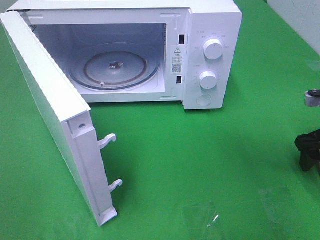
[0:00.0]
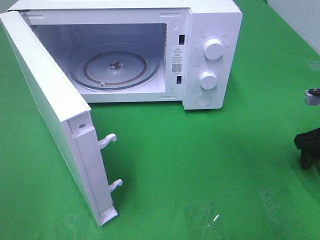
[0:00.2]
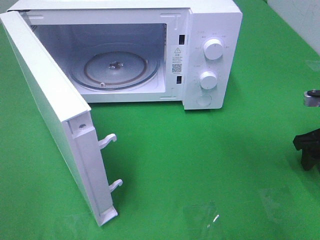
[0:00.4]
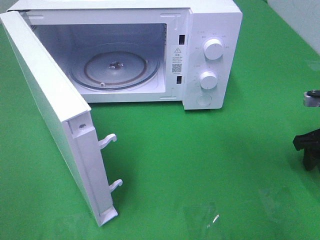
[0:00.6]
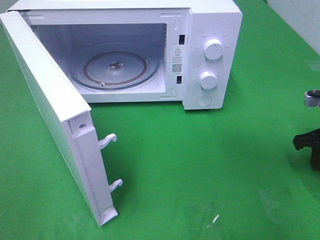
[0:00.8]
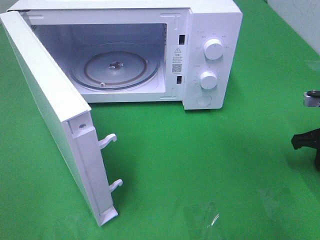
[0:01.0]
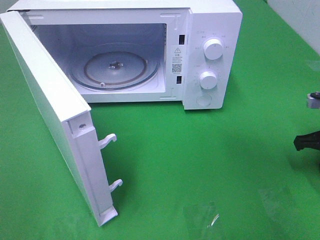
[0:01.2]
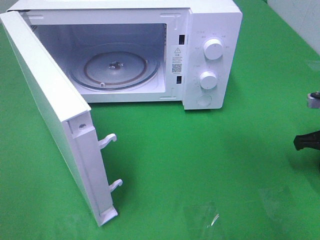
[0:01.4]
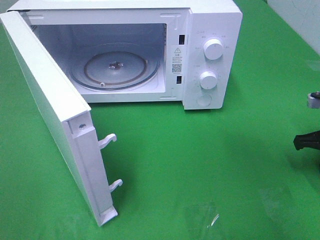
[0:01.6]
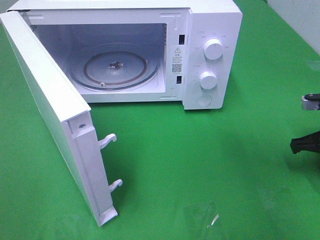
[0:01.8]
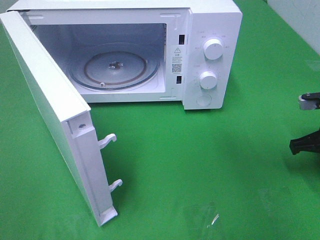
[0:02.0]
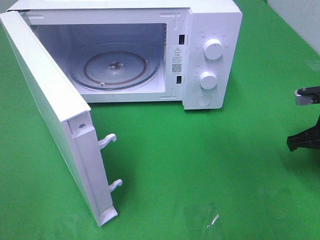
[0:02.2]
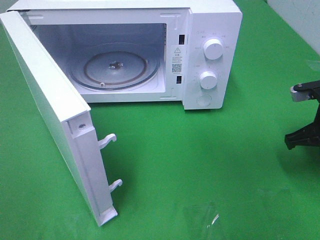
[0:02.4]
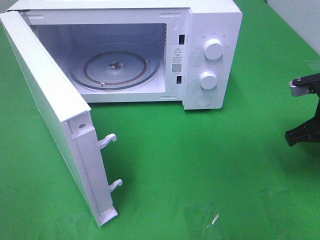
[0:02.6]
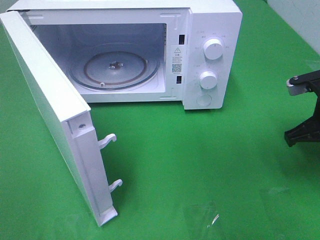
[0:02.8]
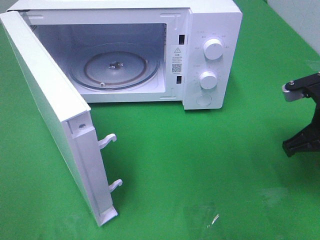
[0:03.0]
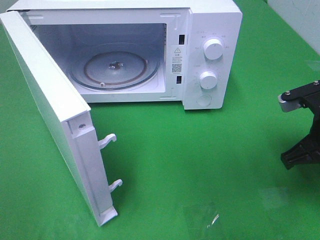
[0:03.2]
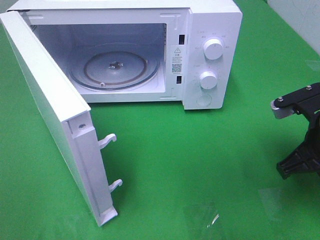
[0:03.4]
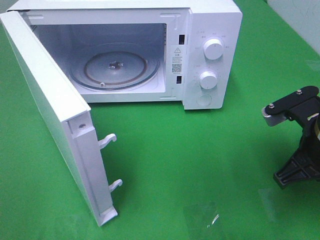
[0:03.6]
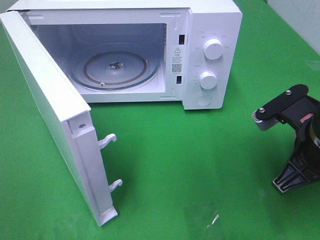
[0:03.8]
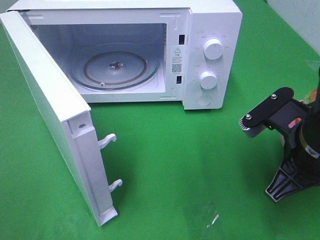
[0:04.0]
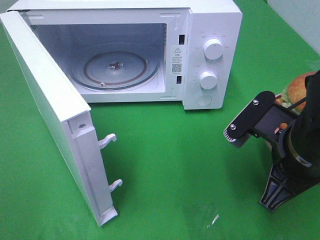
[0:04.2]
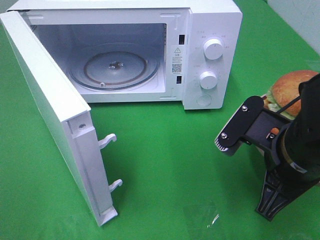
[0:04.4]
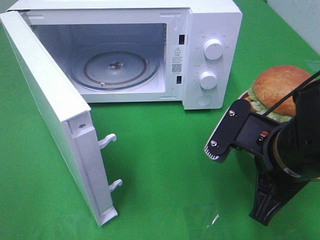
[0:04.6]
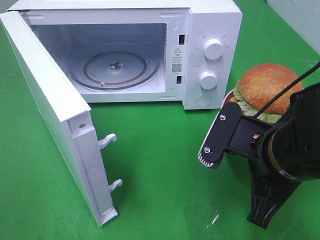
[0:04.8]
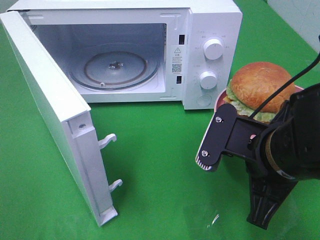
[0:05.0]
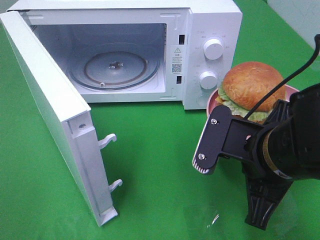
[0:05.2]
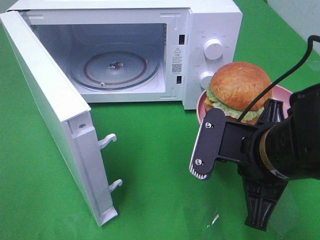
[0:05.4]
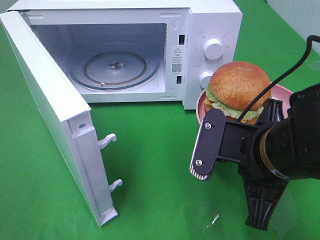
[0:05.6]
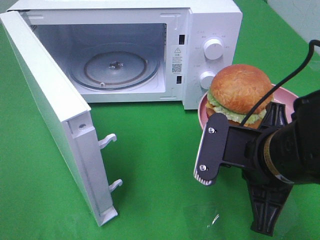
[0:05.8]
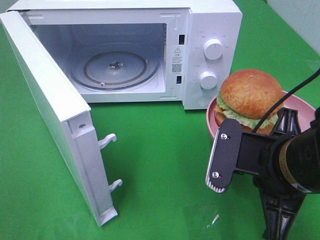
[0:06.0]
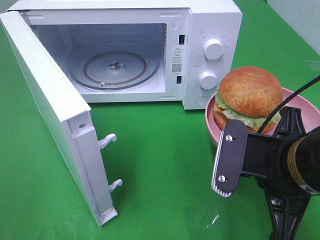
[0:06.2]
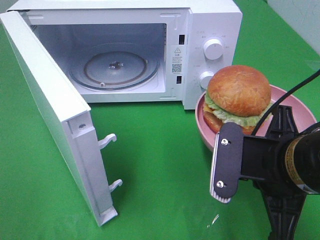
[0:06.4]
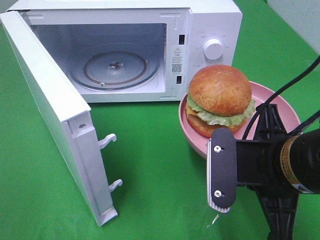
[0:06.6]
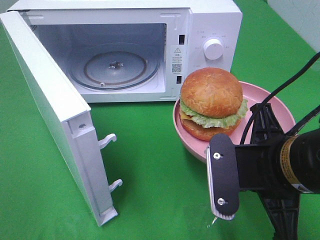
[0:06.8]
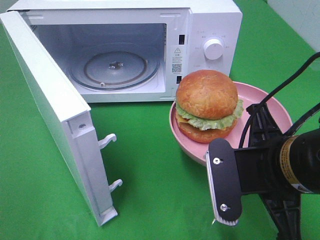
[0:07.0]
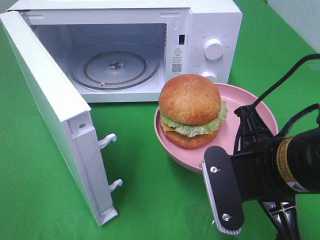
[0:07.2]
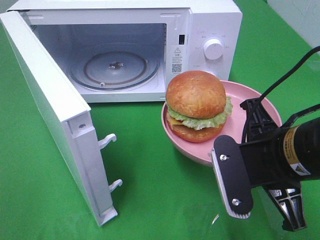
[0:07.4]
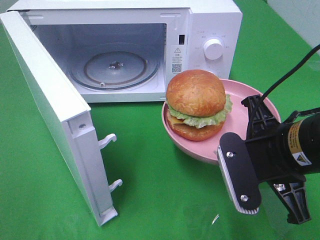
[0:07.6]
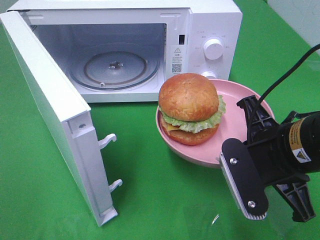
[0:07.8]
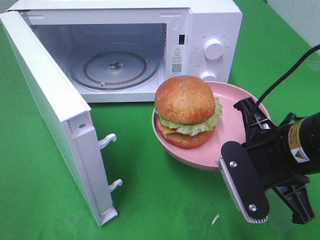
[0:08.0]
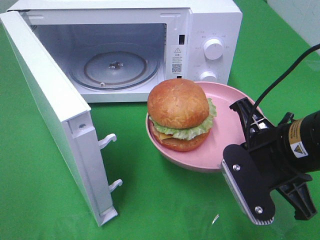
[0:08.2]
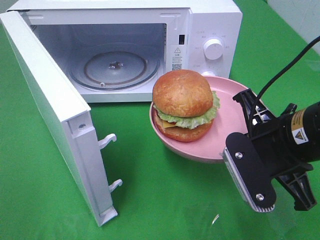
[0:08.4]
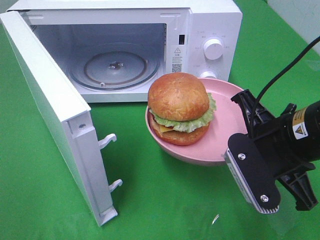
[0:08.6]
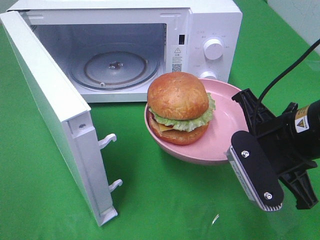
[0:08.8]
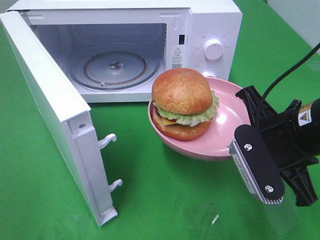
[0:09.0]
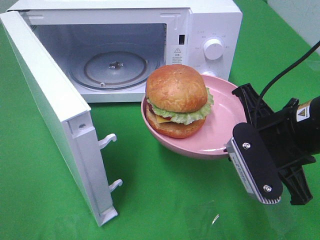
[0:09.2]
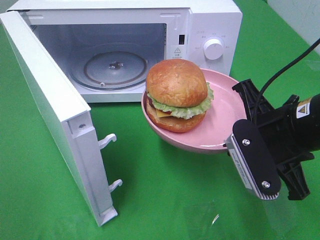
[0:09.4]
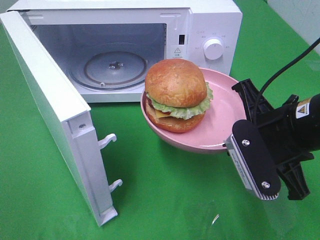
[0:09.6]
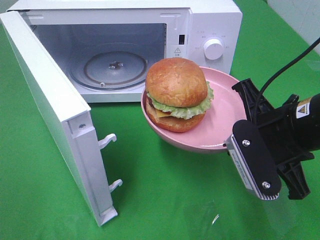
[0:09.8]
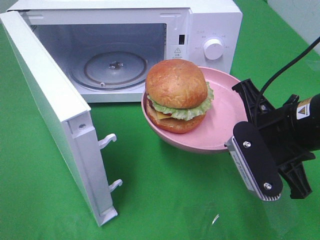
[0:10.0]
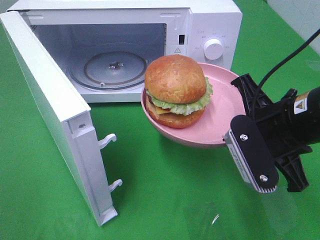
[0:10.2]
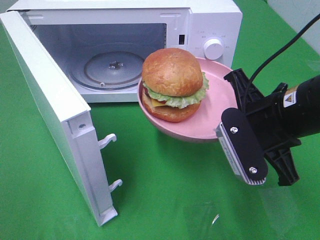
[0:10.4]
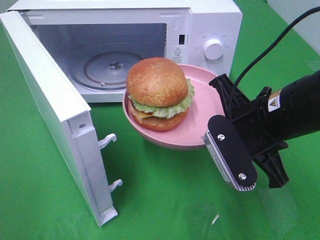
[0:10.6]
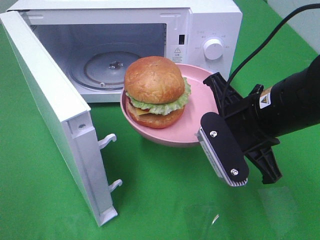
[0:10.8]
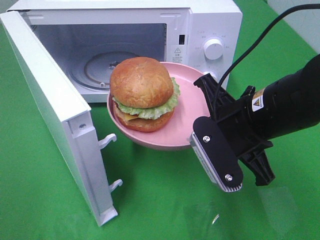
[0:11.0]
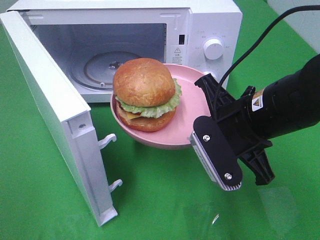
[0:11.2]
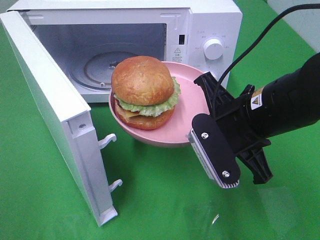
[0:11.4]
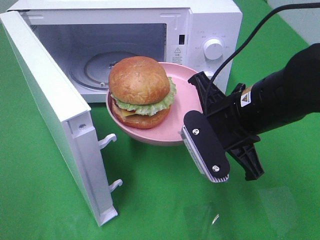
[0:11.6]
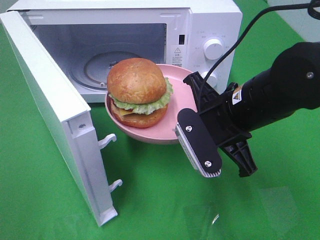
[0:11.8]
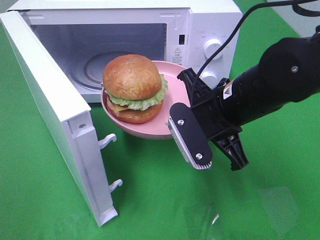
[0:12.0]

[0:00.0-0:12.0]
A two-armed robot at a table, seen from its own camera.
Task of the whole recording: Heat the burger.
0:00.0 to 0:01.6: The right gripper closes.
0:01.6 to 0:03.0: The right gripper goes about 10 cm to the left and upward.
0:03.0 to 0:04.4: The right gripper travels to the left and backward by approximately 15 cm.
0:07.6 to 0:10.4: The grippers move only a little.
0:10.4 to 0:12.0: The right gripper is displaced to the left by some 5 cm.

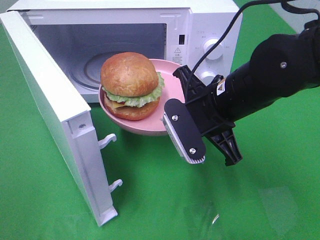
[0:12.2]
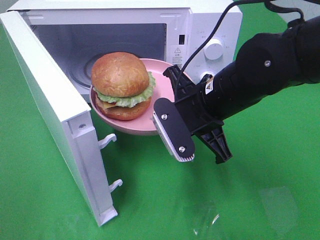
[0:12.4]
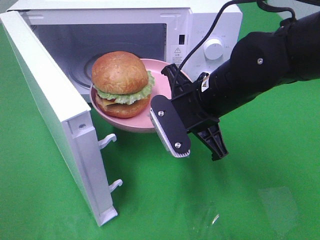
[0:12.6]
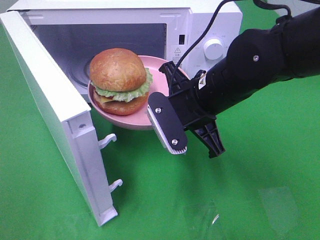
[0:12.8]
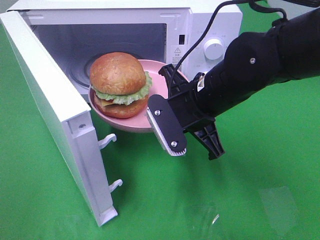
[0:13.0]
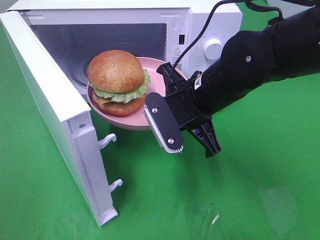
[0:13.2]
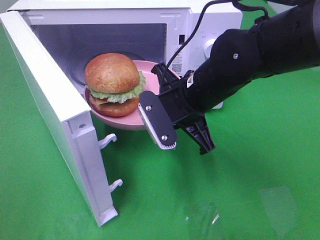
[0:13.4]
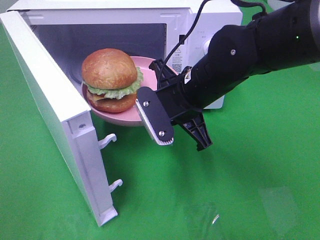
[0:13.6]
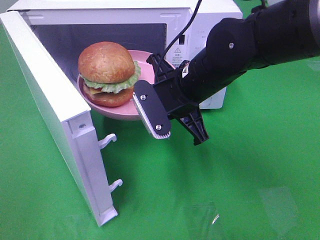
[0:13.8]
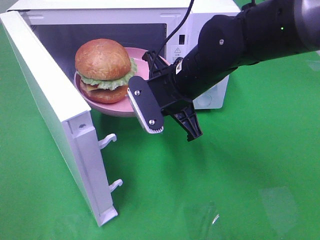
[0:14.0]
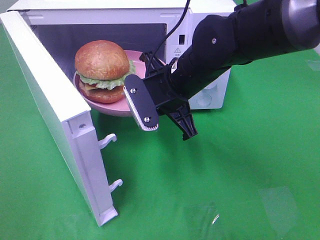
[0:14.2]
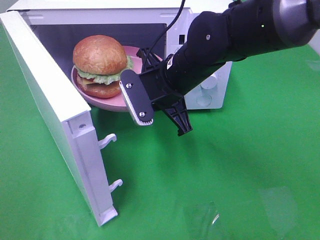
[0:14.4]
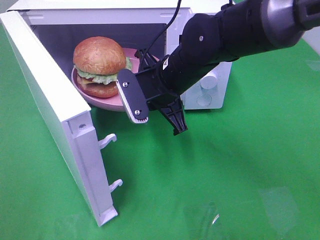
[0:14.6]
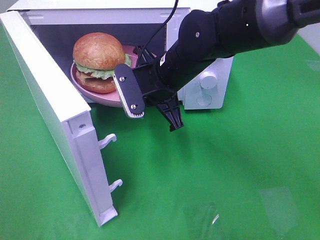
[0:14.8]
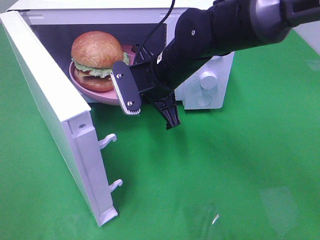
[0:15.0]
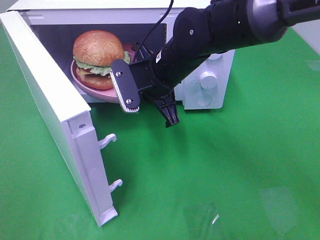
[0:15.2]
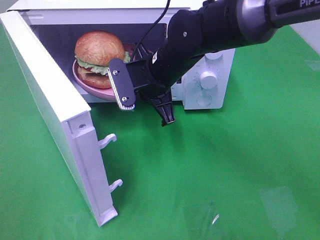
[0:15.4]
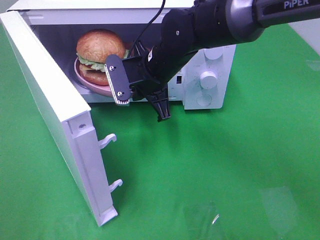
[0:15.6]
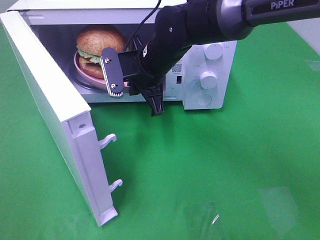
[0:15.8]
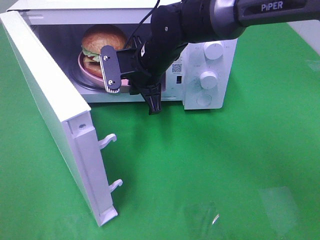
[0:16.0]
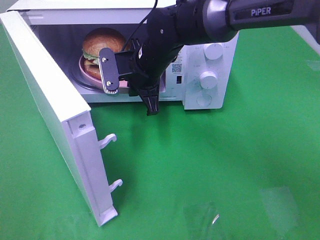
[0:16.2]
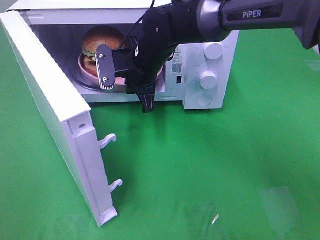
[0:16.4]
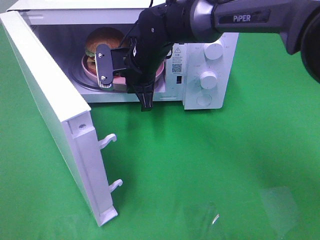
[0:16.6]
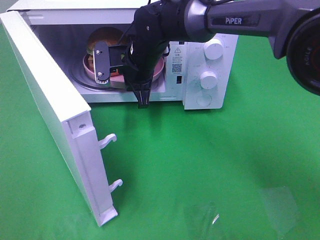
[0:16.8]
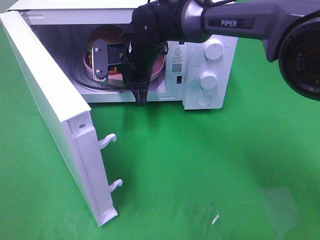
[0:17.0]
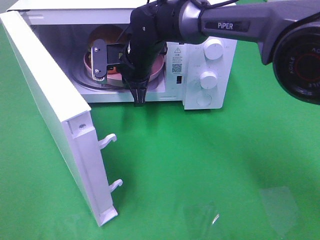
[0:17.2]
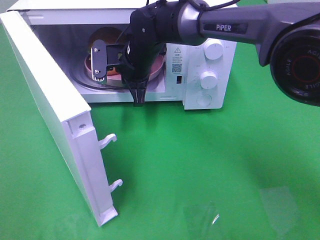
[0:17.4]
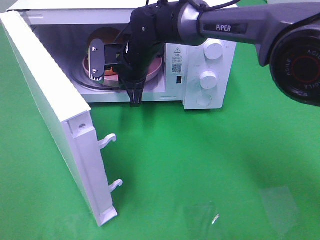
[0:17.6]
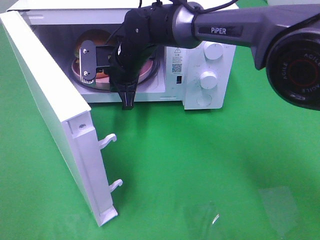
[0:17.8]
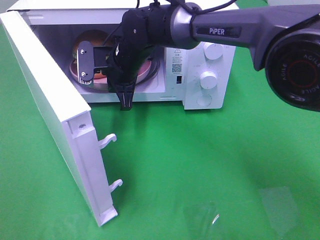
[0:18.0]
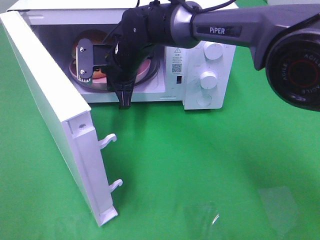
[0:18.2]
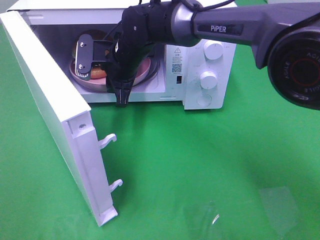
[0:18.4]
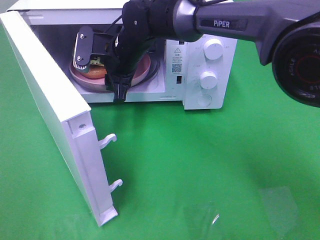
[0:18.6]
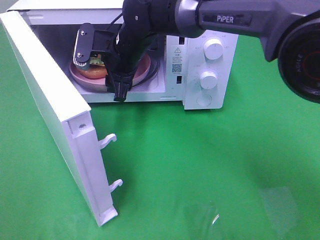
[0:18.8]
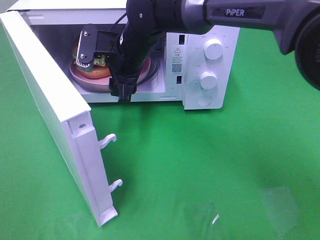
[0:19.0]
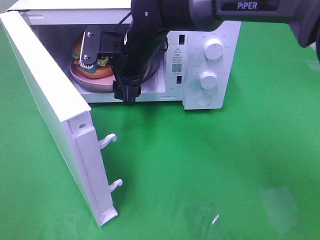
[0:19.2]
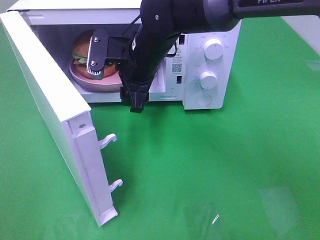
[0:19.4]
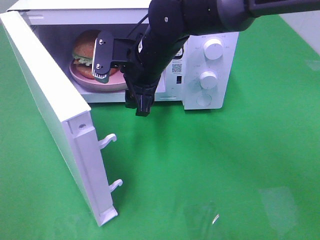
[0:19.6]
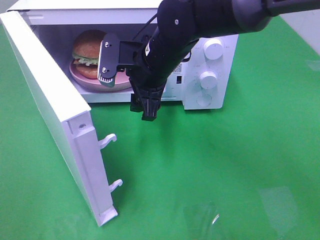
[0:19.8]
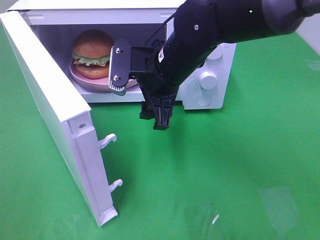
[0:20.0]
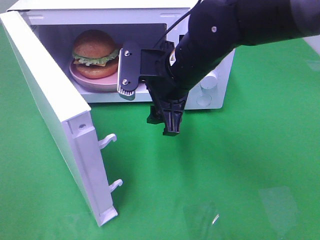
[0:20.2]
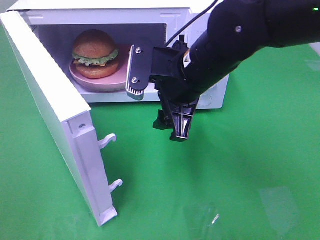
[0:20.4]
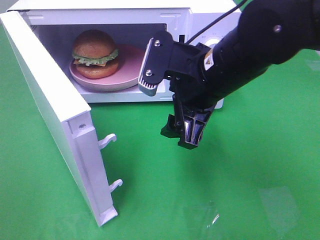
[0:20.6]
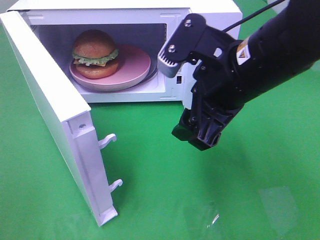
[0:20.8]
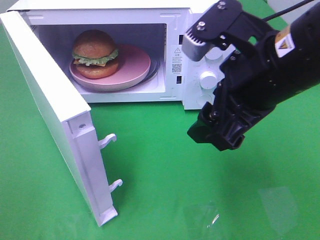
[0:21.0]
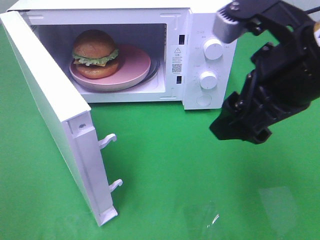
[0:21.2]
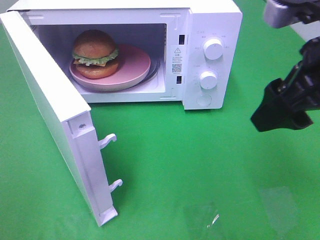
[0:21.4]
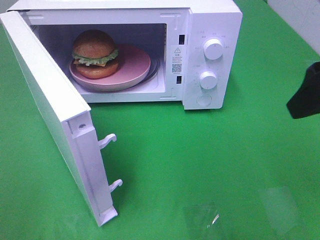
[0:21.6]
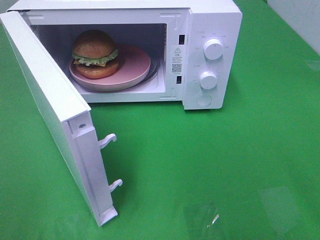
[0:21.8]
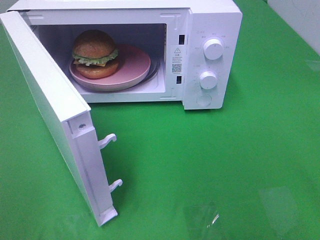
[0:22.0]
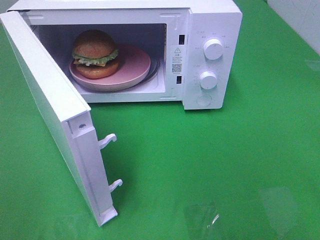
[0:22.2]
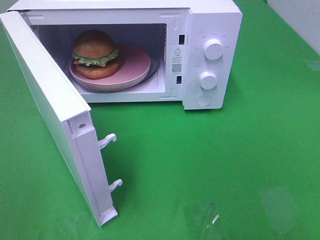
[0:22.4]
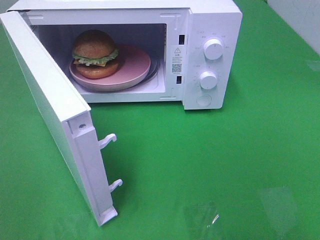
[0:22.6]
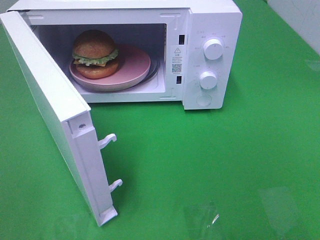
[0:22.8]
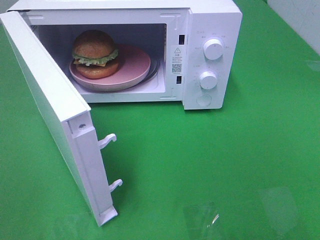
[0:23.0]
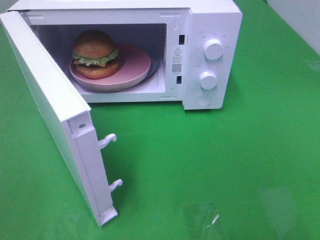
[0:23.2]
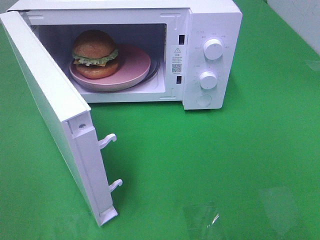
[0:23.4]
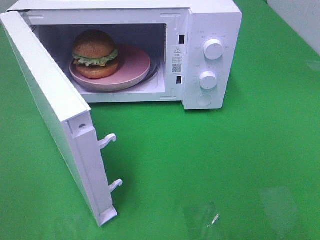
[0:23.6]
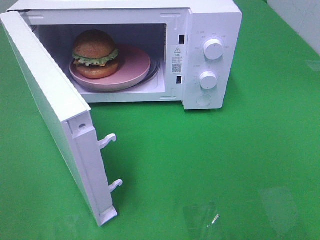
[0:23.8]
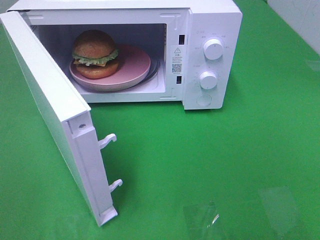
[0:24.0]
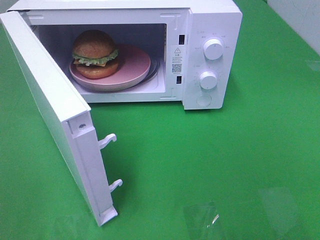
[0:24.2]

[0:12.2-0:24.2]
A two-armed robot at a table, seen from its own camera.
Task of the whole recording: Heat the burger.
Step, 0:12.2 to 0:18.2: Right hand: place the plate in the microwave.
0:12.2 to 0:13.8: The right gripper moves about 5 cm.
0:13.8 to 0:15.2: The right gripper changes place by some 5 cm.
0:15.2 to 0:16.6: The right gripper travels forward by approximately 5 cm.
0:16.6 to 0:18.2: There are only small adjustments of the grippers.
0:18.2 to 0:19.8: The right gripper is displaced backward and to the right by some 10 cm, and opens.
0:19.8 to 0:21.2: The right gripper shifts about 25 cm backward, to the right and upward.
0:21.2 to 0:22.6: The right gripper heads backward and to the right, covering about 20 cm.
